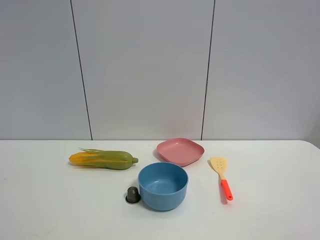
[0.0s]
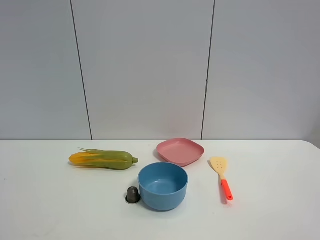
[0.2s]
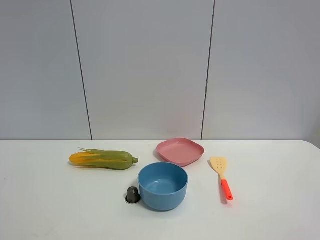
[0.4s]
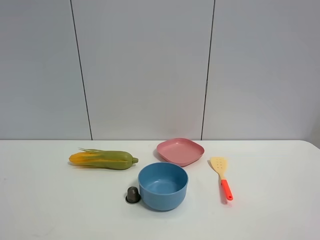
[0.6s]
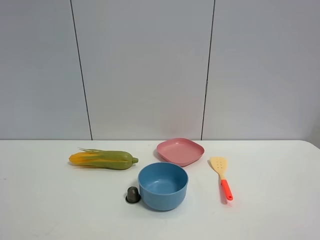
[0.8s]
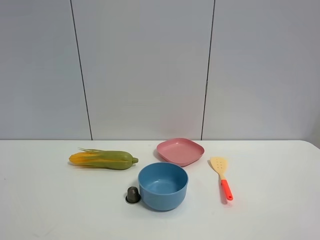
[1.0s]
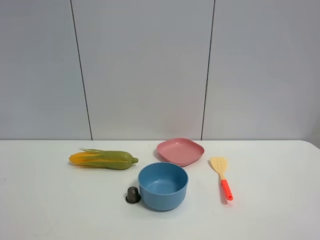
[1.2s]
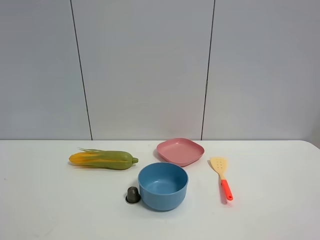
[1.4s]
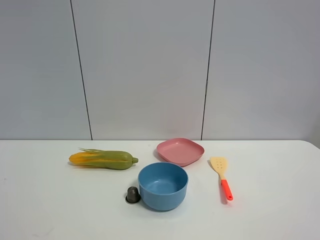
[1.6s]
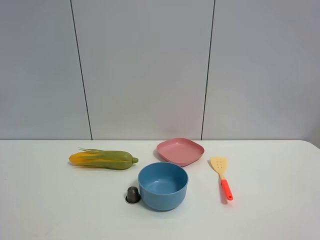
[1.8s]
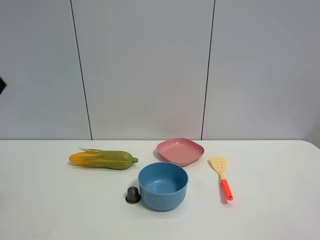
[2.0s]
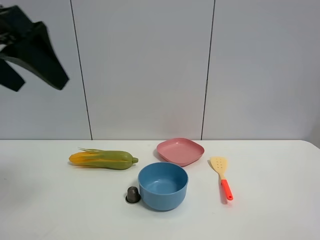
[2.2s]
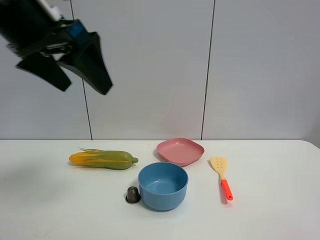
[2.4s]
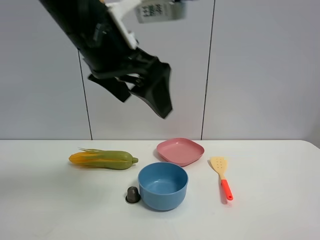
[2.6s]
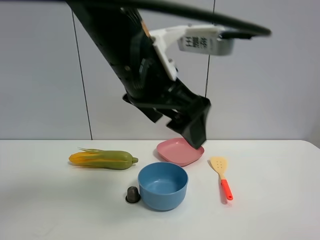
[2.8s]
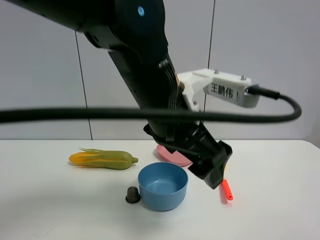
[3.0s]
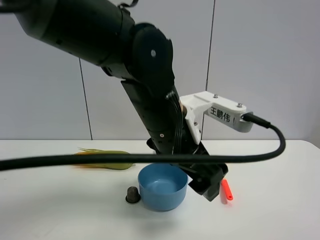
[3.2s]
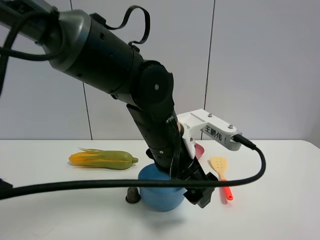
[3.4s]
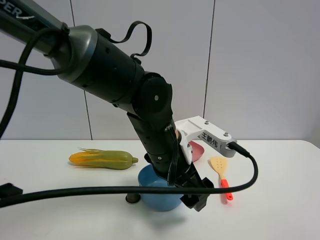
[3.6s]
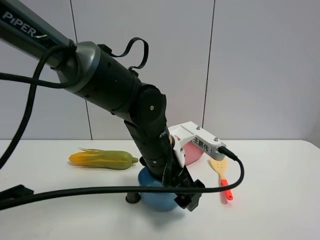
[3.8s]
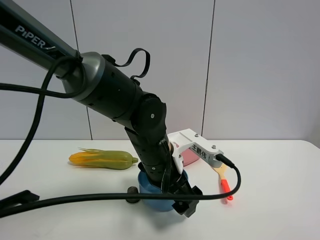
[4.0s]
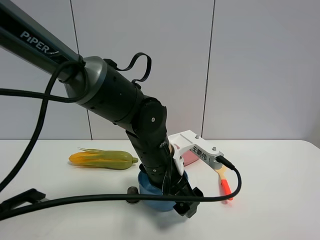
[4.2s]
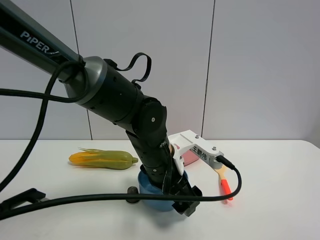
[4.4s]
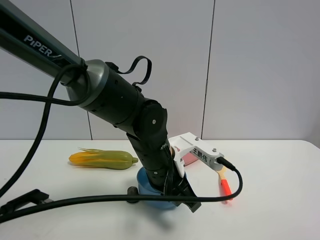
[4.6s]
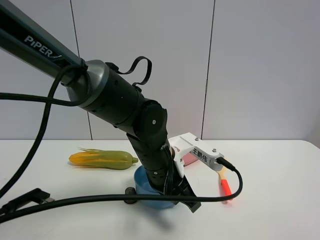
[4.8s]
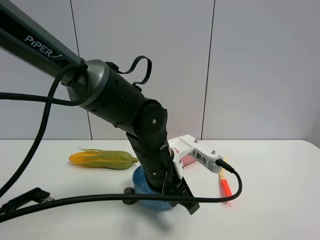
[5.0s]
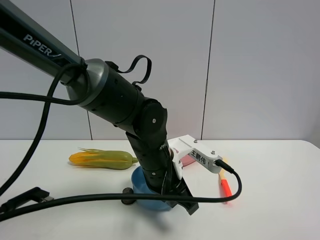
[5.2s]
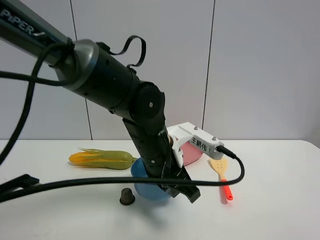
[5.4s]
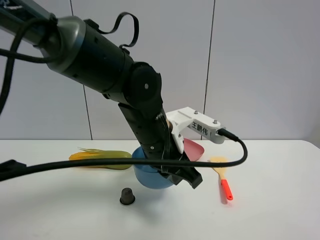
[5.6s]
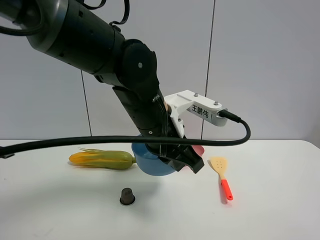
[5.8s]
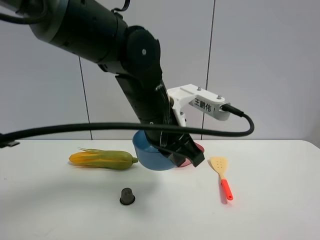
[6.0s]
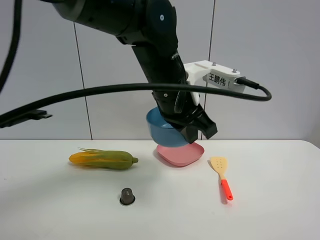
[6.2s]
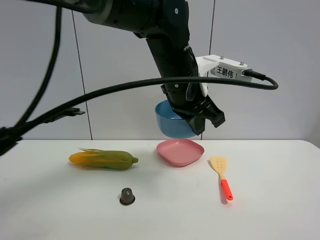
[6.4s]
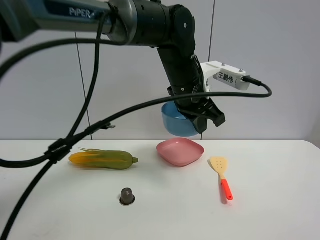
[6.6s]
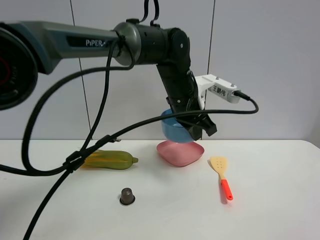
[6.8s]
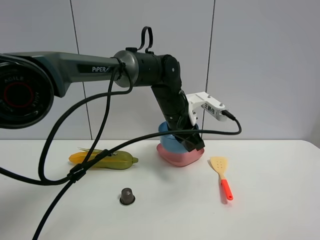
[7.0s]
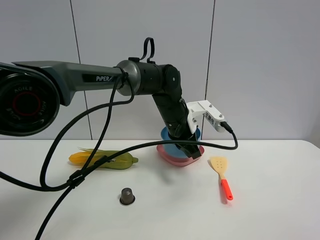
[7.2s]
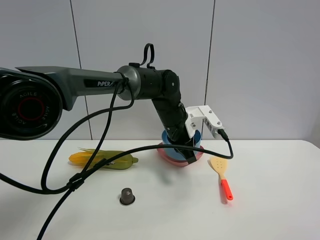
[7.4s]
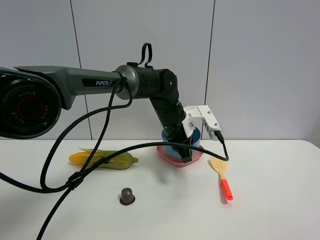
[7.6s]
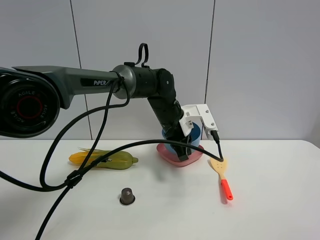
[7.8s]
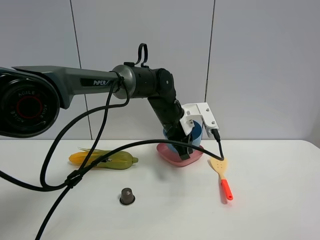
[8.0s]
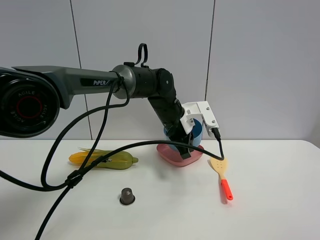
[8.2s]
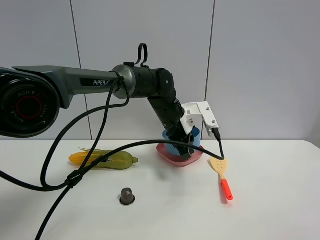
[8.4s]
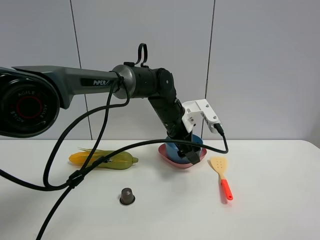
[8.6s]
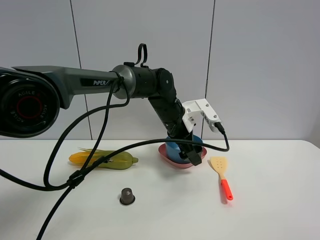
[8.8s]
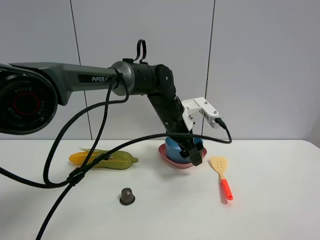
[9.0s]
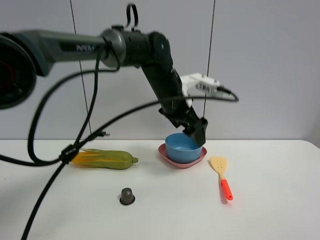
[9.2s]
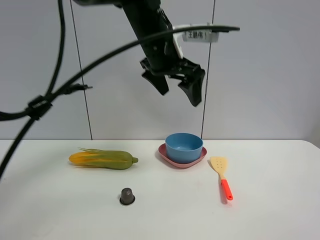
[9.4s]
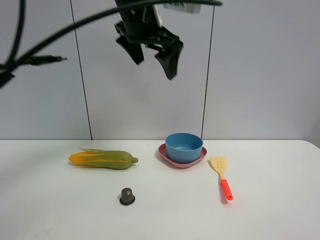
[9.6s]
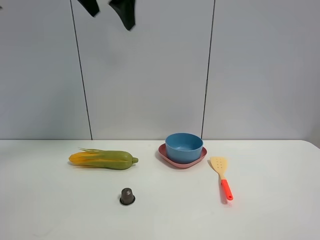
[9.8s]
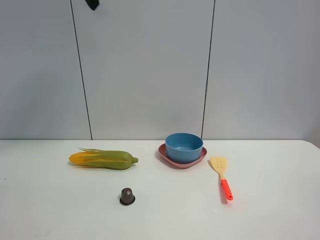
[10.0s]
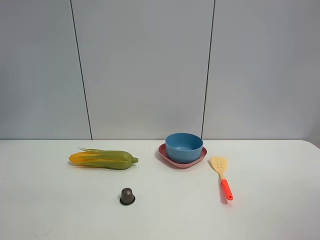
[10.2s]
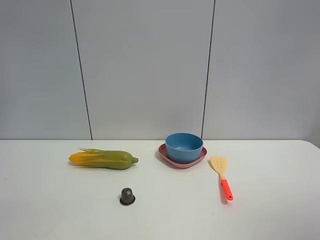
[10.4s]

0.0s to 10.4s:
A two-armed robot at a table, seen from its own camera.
Task of the whole recording: the gripper move the object.
Step, 0.0s to 4.6s: Grasp the blue bowl with the left gripper.
Step, 4.8s to 8.6s: Place the blue bowl on the table with the left gripper.
1.4s to 3.0s: The left gripper heads to the right and forward, covering approximately 35 cm.
3.0s to 4.4s: The left gripper is displaced downward and forward by about 15 cm.
4.4s to 6.0s: The left gripper goes about 10 cm upward, and closes.
6.0s to 7.4s: The left gripper shifts approximately 15 cm forward and downward.
7.4s to 9.0s: The left gripper opens up.
9.0s to 10.4s: The left gripper moves upward and to the left, roughly 50 cm.

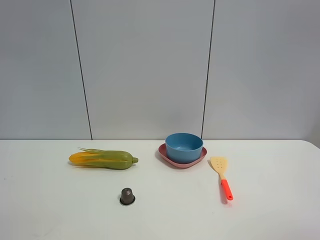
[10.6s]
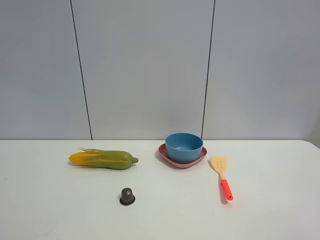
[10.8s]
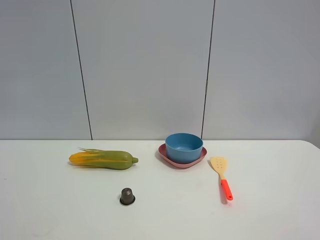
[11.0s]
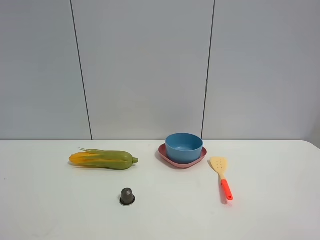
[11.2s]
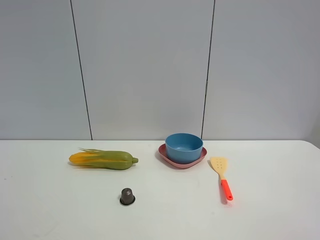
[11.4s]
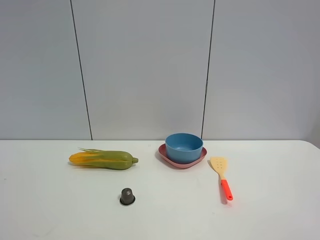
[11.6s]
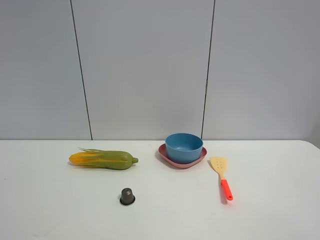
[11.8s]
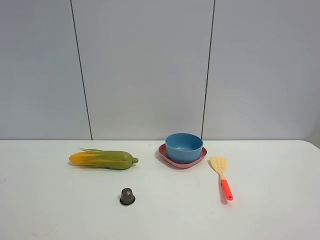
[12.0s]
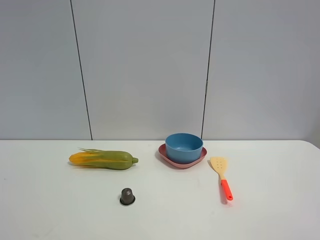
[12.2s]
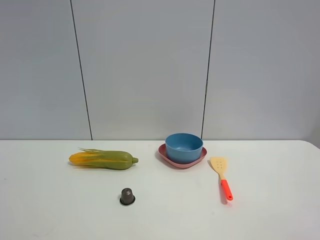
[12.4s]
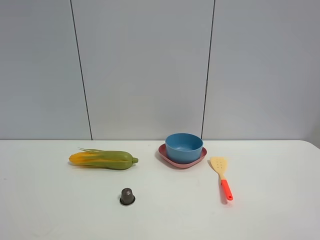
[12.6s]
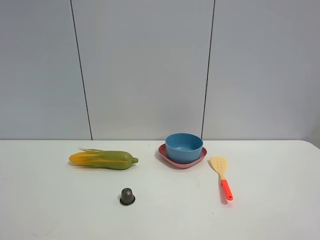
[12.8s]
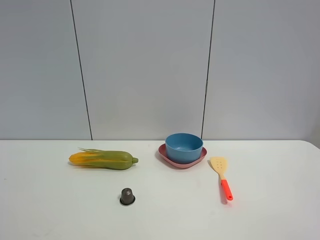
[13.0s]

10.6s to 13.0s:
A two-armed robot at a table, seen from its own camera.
Task of the whole recording: the gripper move the object.
11.8s to 13.0s: Both grippers stay put.

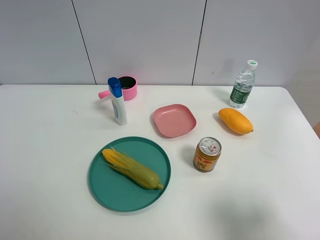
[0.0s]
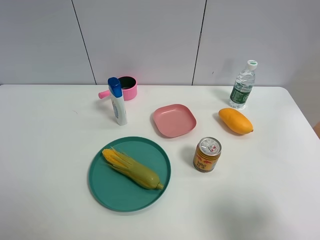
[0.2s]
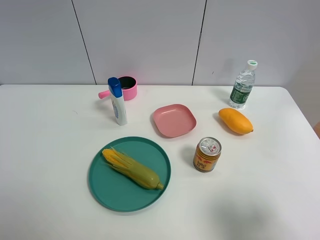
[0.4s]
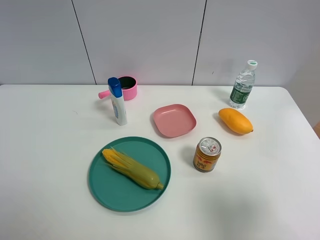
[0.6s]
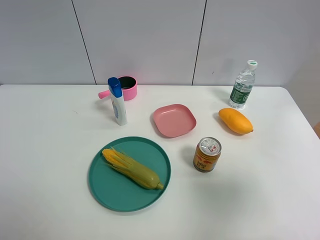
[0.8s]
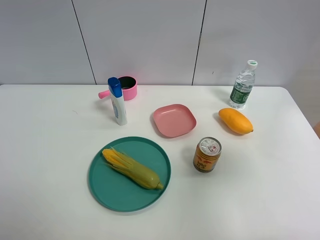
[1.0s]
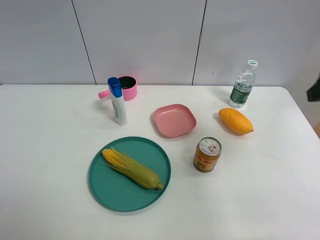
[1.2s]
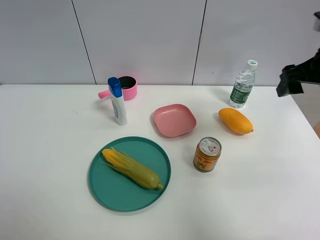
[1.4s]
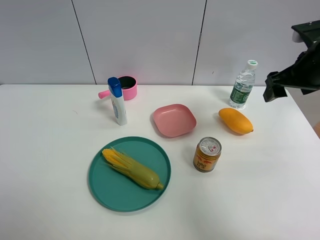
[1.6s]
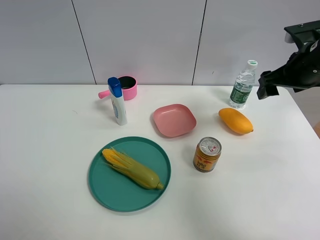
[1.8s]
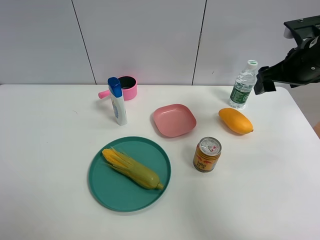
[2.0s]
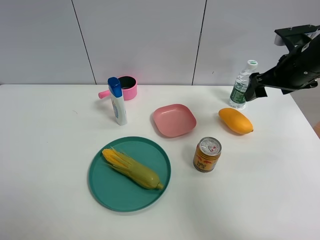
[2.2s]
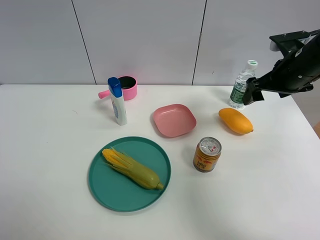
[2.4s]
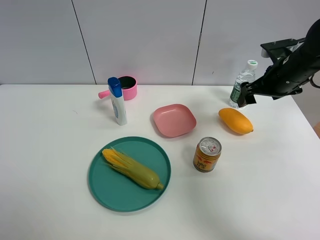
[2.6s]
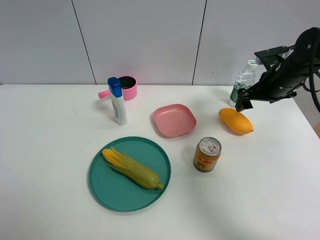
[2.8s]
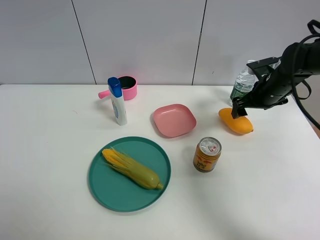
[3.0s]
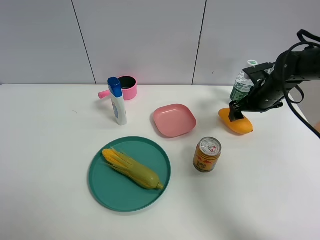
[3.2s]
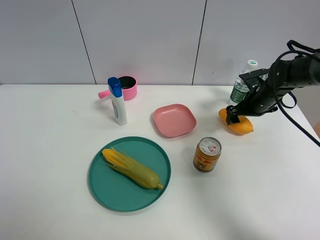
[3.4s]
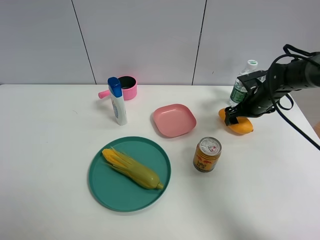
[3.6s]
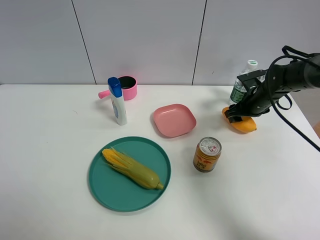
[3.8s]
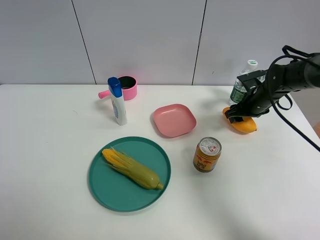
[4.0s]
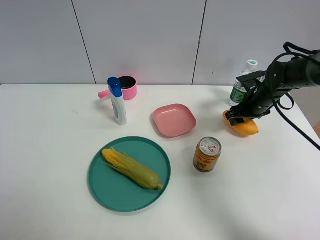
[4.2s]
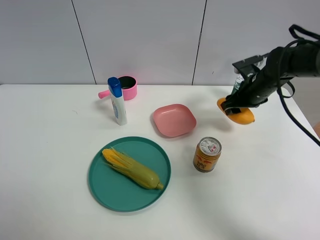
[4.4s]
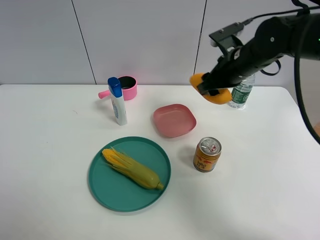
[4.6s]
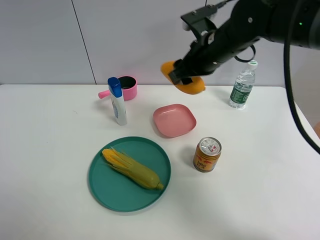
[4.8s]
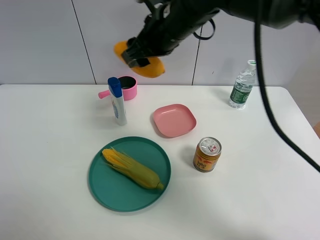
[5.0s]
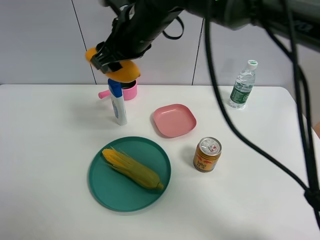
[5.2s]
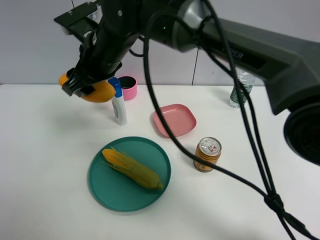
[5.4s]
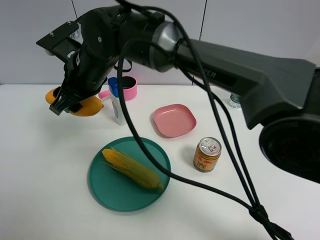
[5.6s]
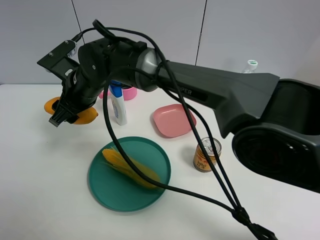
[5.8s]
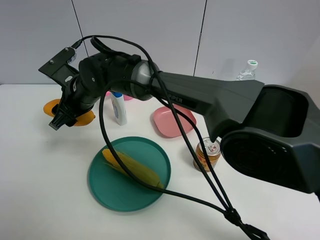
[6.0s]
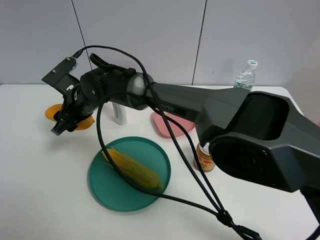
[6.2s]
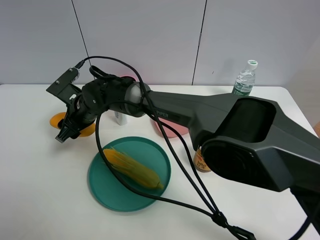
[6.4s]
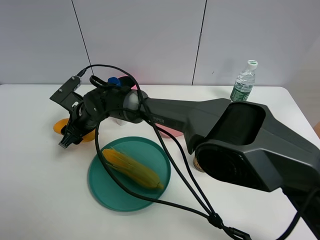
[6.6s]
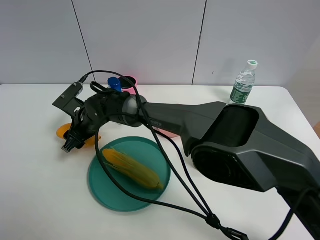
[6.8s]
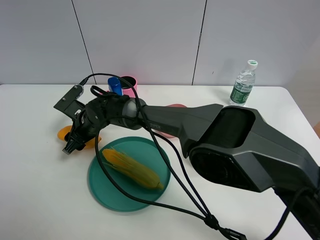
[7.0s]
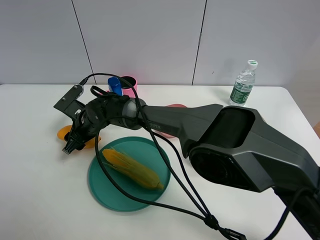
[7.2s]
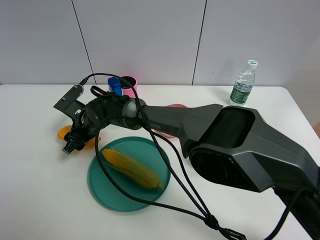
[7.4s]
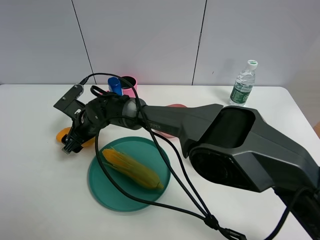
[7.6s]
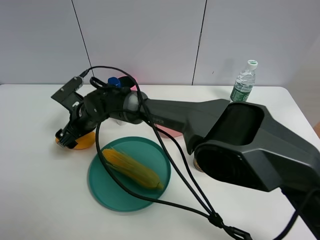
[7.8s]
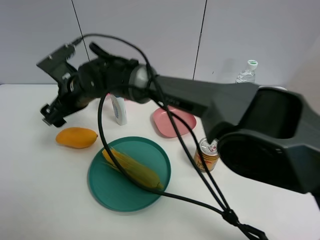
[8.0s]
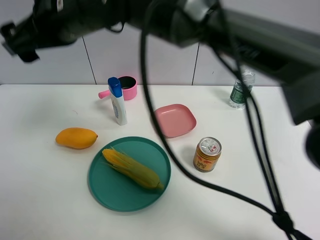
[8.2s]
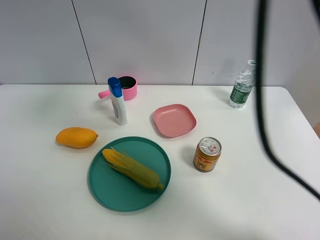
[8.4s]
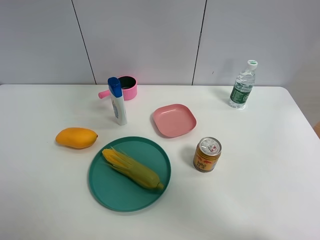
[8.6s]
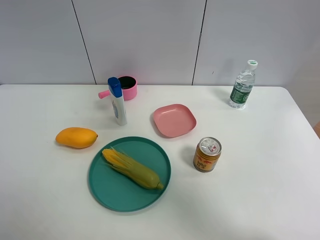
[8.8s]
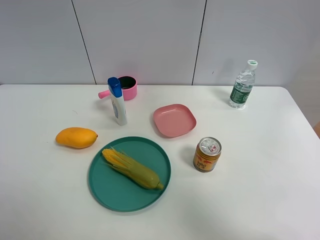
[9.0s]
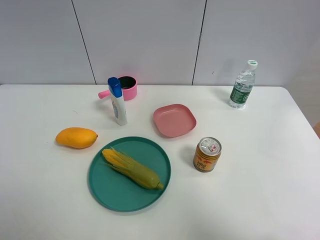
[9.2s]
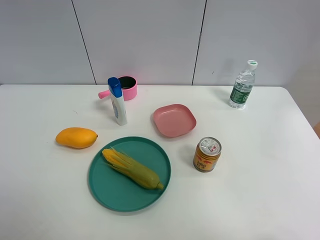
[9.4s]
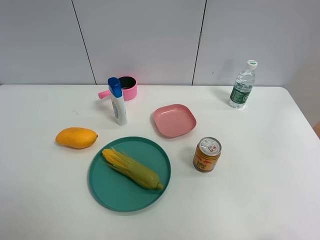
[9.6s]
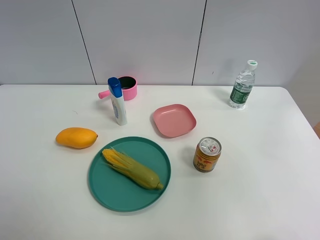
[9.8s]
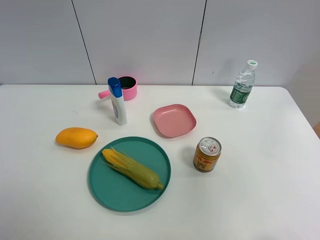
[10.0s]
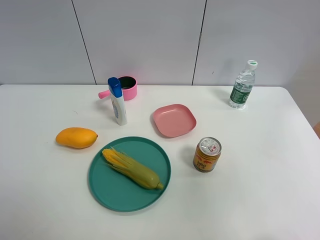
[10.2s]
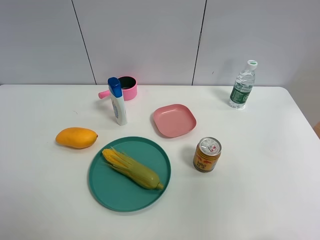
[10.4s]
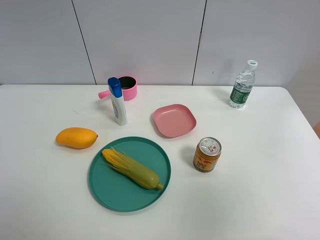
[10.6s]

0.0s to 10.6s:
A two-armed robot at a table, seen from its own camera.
Task of the whole recording: the gripper move the object.
Step, 0.0s to 4.0s: Grasp the mango with the right gripper.
Step, 4.2s to 7.6s: Place the mango on the table with the right gripper.
0.0s to 1.6s: The right gripper goes about 30 cm forward, and closes its fingers.
1.6s to 3.0s: The right gripper shifts approximately 15 cm downward and forward, and opens up.
3.0s to 4.6s: The right gripper is displaced to the left and upward by approximately 15 cm, and closes up.
4.6s to 6.0s: The right gripper moves to the left, roughly 30 cm.
6.0s to 7.6s: The right gripper goes about 10 cm downward, and opens its fingers.
7.6s to 9.0s: The right gripper shifts approximately 60 cm upward and to the right.
9.0s to 10.6s: The right gripper goes approximately 30 cm backward and downward.
